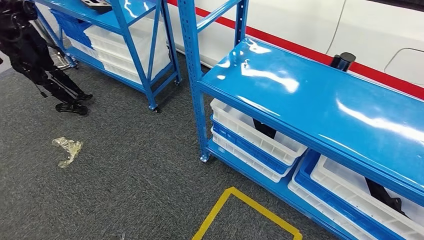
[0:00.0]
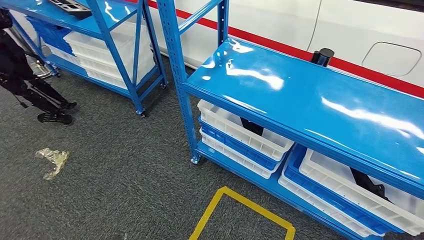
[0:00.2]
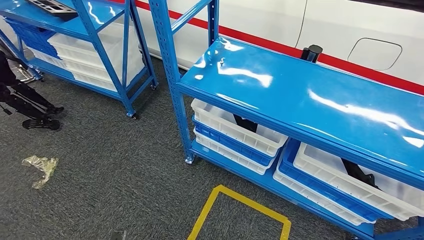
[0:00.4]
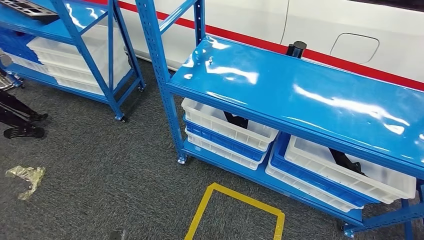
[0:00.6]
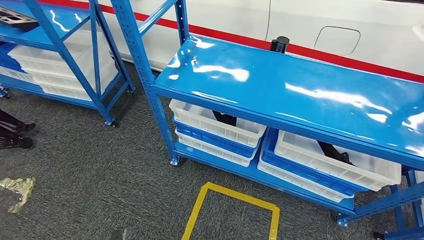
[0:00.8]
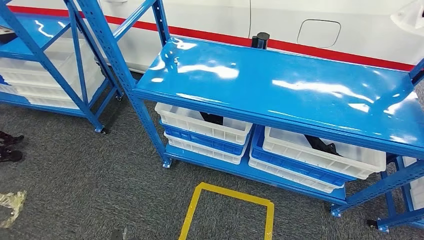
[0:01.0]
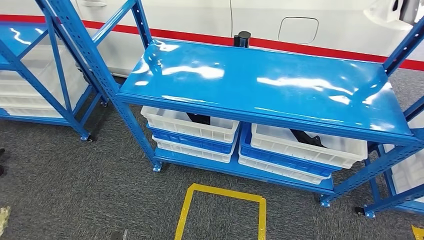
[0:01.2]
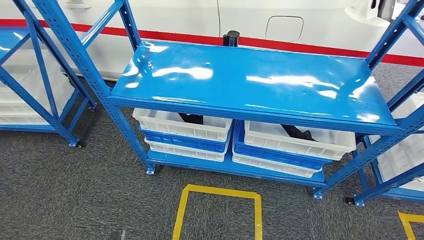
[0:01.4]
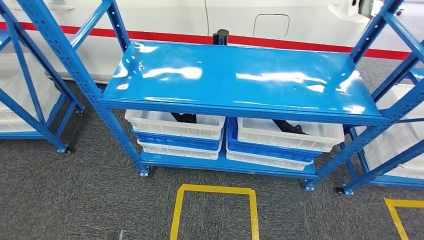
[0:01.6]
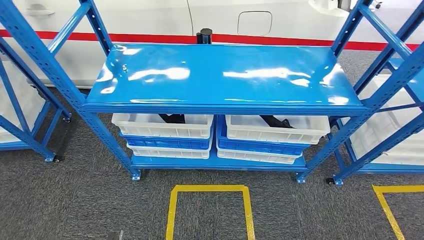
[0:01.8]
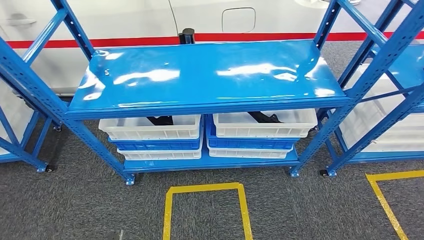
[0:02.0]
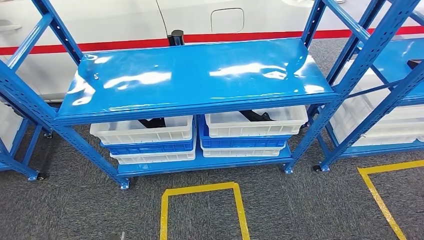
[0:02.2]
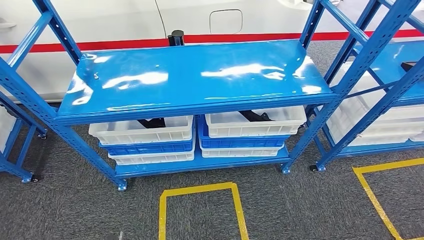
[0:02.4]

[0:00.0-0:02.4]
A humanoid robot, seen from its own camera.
Step, 0:00.0 to 0:02.4: Move to the initial position of the shelf.
